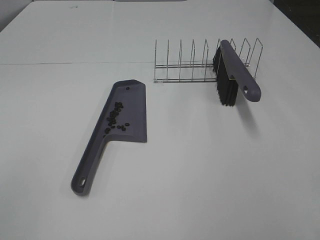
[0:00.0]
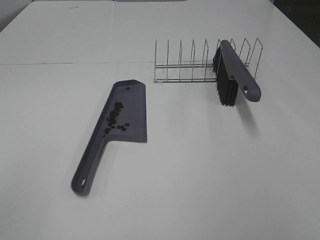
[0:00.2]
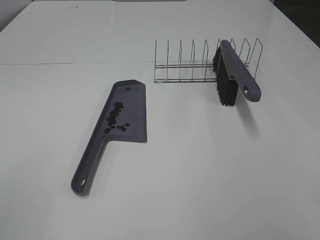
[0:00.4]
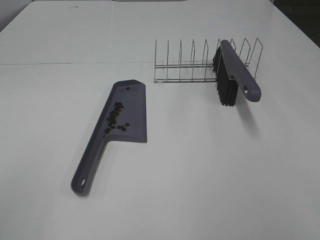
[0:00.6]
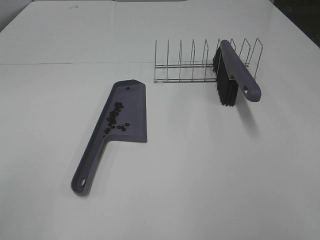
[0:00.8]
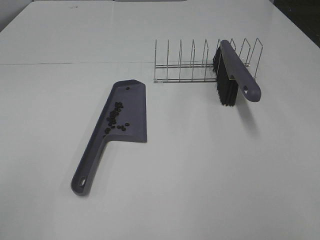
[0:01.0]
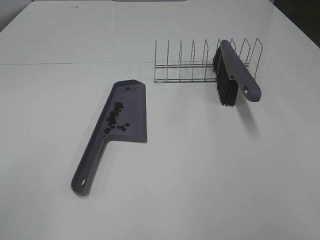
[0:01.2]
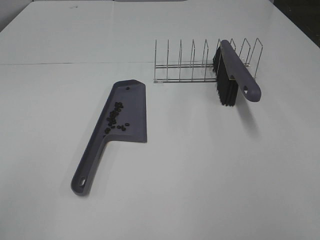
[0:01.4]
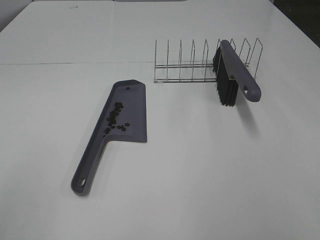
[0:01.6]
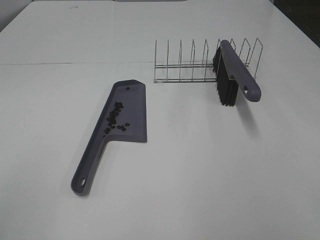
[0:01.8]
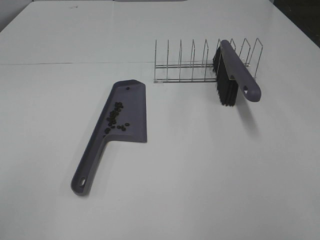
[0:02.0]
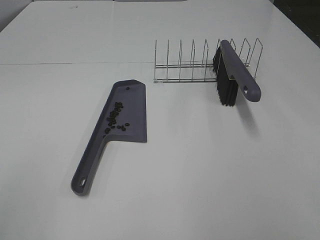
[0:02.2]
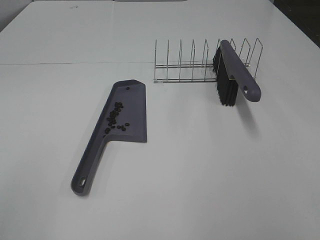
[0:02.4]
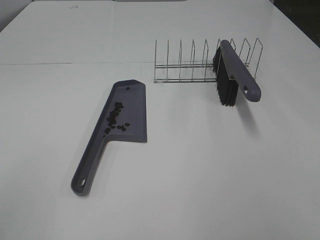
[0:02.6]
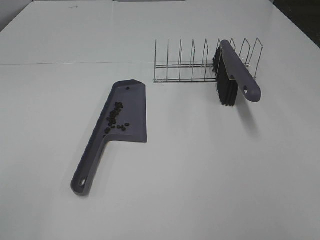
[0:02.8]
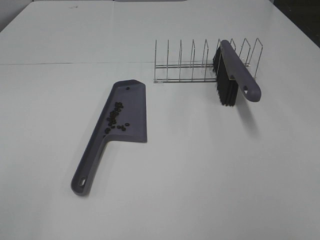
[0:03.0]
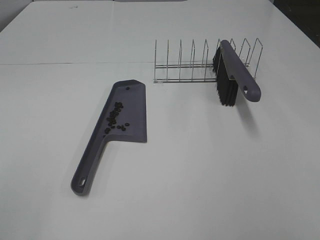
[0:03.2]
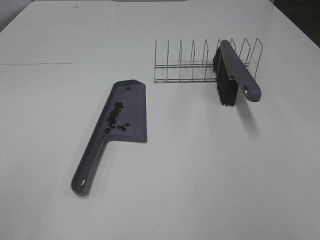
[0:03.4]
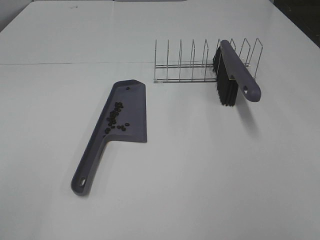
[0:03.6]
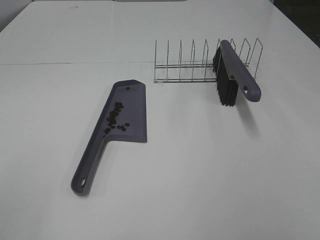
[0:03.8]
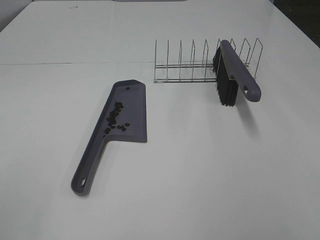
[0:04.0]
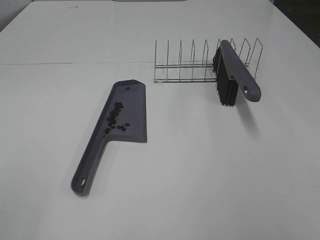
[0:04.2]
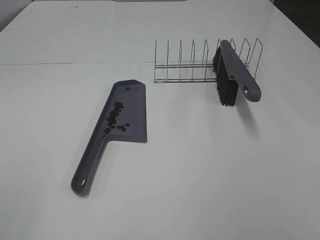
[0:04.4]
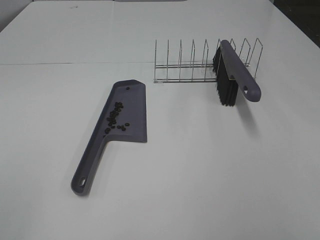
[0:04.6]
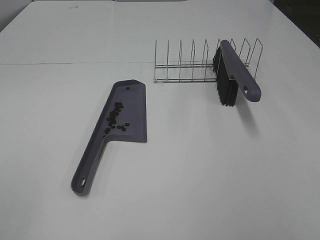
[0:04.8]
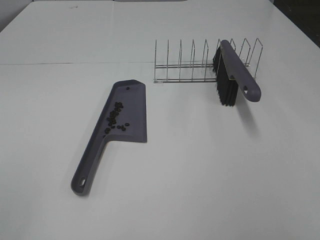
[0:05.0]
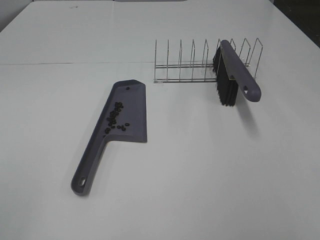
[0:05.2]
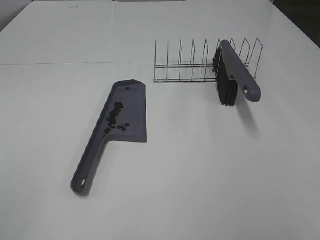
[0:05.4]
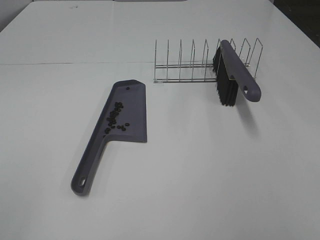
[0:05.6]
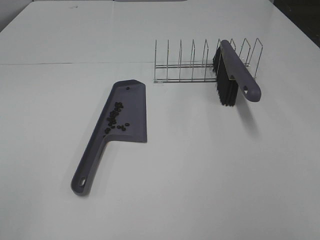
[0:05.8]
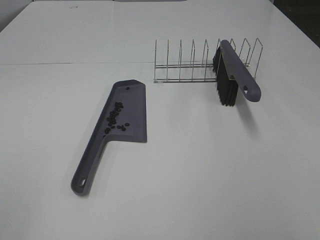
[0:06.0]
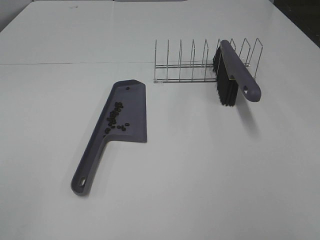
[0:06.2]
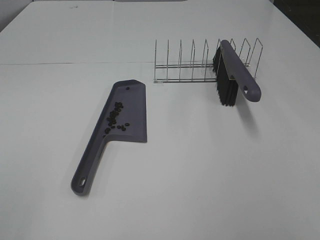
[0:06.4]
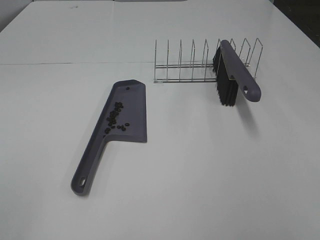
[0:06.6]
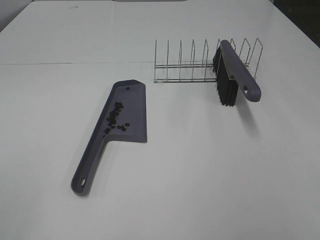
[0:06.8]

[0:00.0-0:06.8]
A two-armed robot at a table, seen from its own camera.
Task of the whole recording: Sweep Coffee Bean.
0:05.4 to 0:06.8: Both grippers stay put.

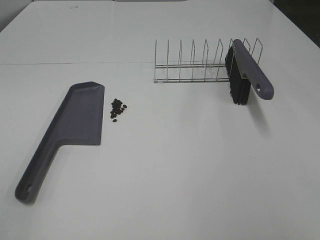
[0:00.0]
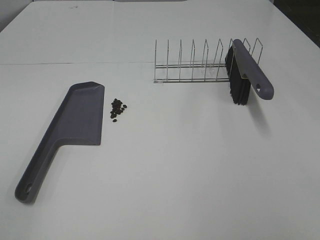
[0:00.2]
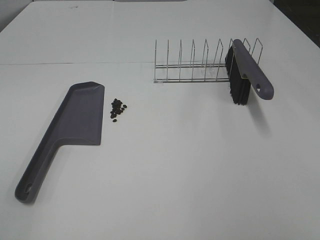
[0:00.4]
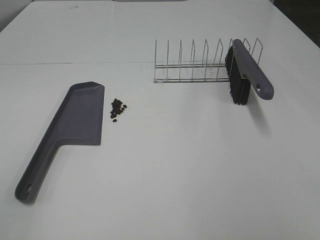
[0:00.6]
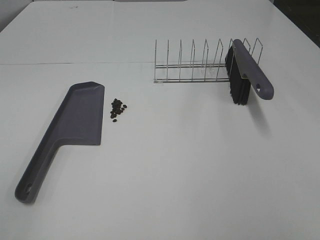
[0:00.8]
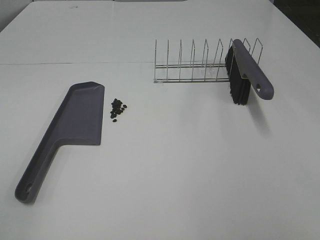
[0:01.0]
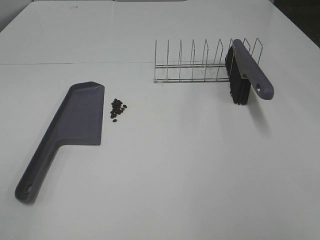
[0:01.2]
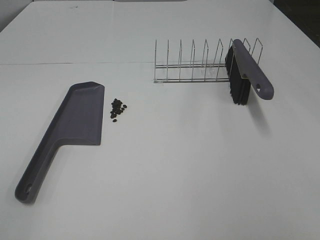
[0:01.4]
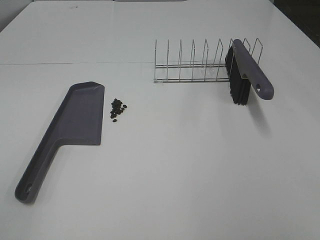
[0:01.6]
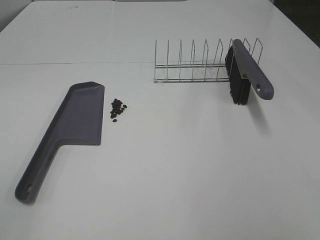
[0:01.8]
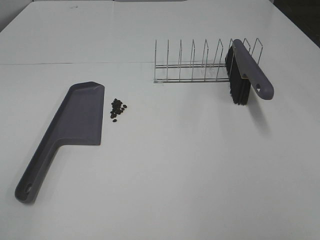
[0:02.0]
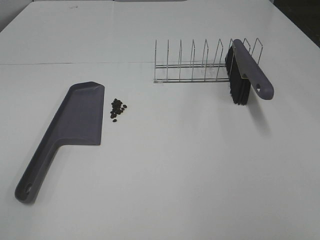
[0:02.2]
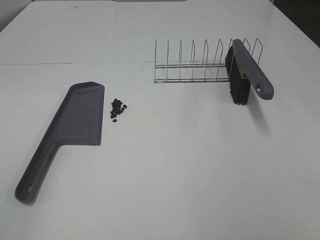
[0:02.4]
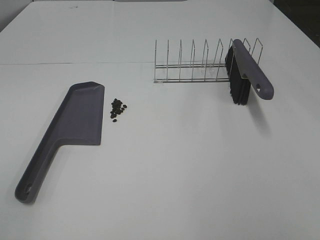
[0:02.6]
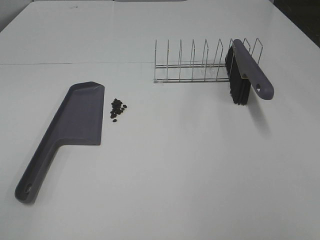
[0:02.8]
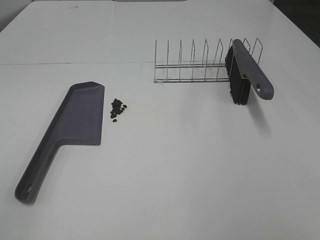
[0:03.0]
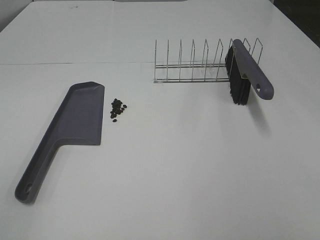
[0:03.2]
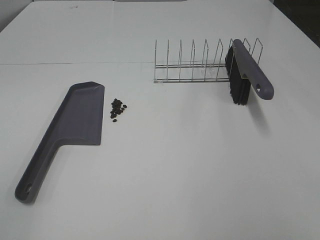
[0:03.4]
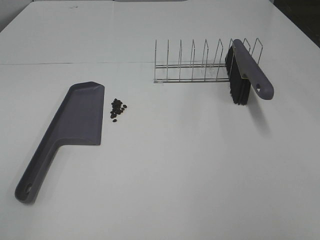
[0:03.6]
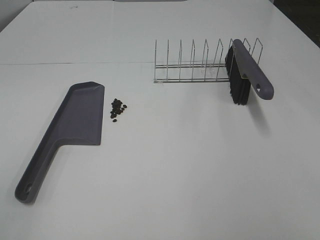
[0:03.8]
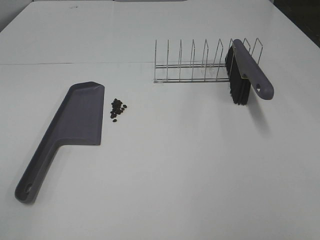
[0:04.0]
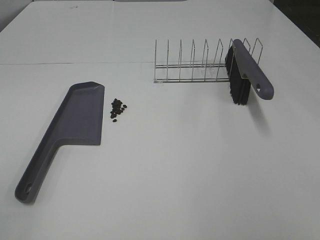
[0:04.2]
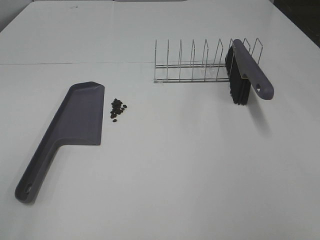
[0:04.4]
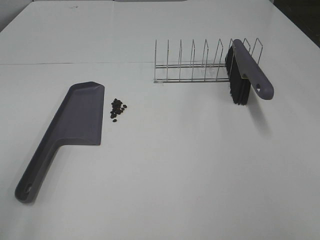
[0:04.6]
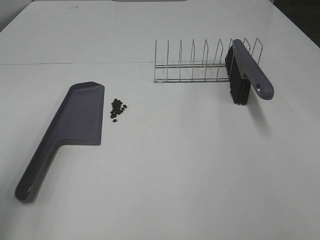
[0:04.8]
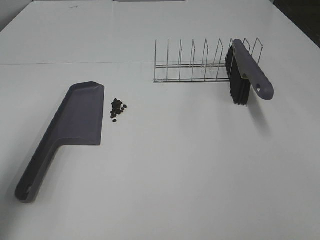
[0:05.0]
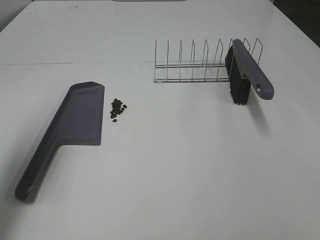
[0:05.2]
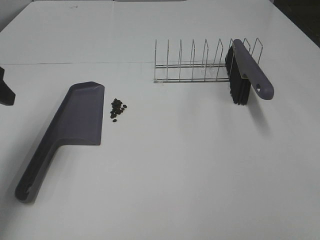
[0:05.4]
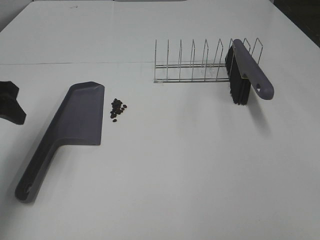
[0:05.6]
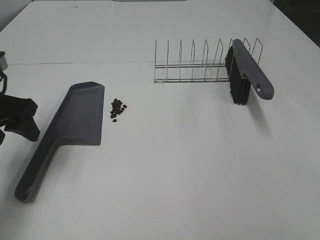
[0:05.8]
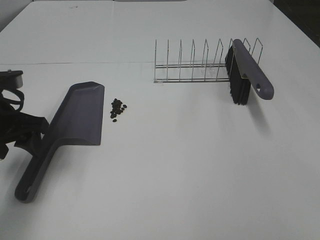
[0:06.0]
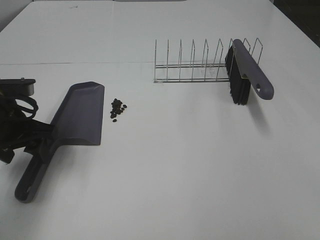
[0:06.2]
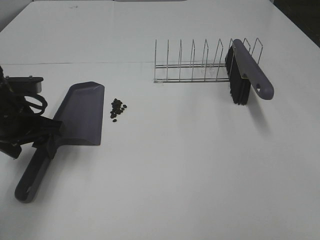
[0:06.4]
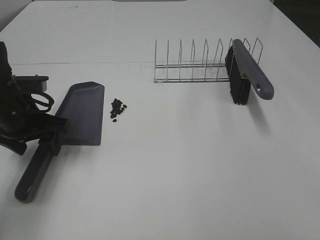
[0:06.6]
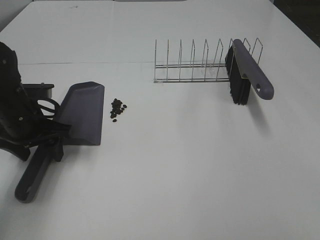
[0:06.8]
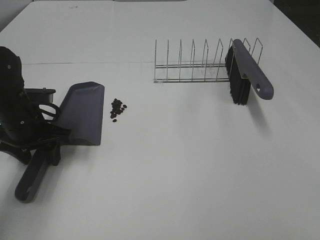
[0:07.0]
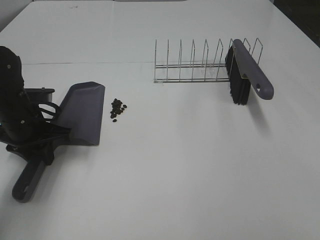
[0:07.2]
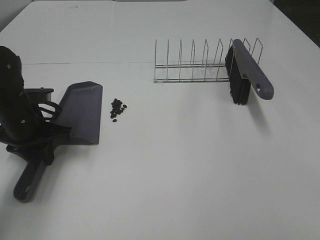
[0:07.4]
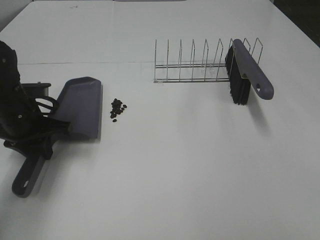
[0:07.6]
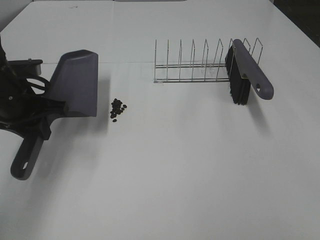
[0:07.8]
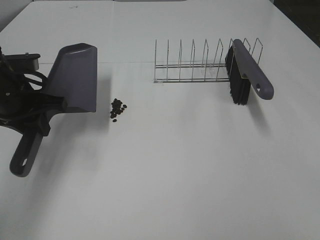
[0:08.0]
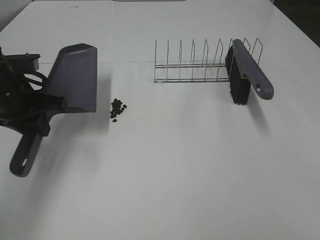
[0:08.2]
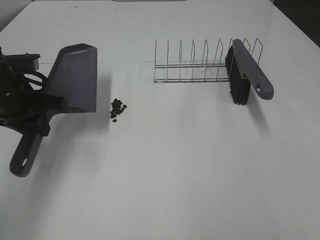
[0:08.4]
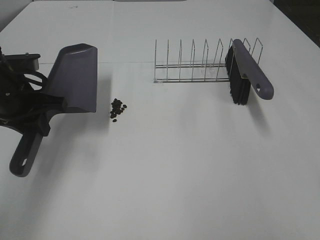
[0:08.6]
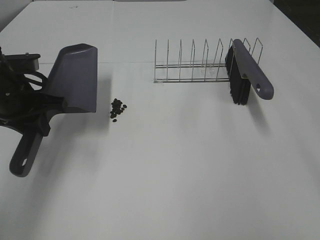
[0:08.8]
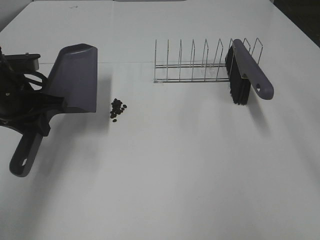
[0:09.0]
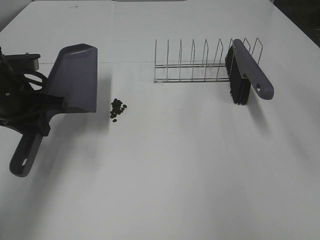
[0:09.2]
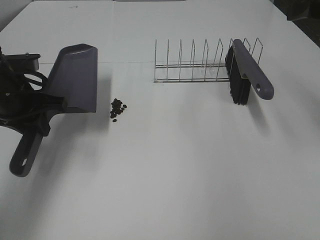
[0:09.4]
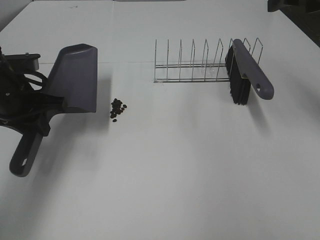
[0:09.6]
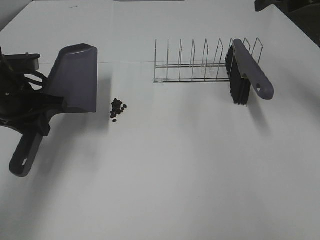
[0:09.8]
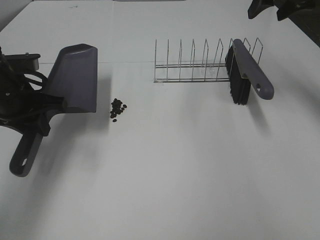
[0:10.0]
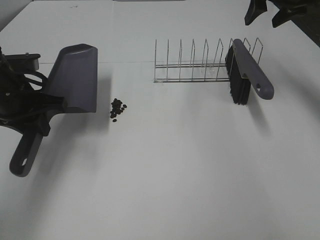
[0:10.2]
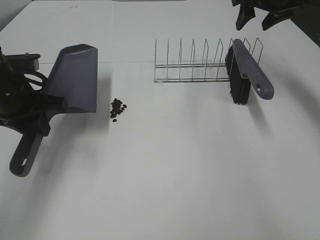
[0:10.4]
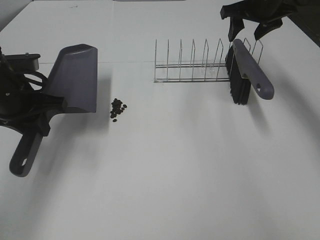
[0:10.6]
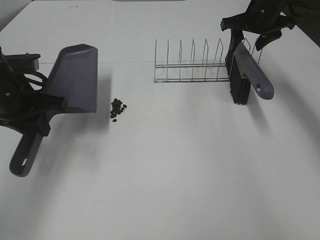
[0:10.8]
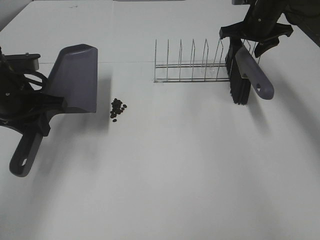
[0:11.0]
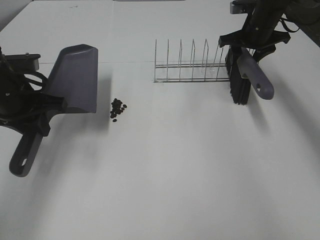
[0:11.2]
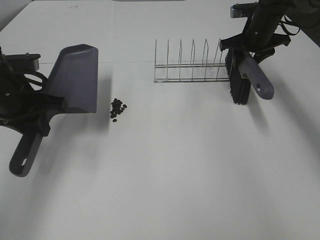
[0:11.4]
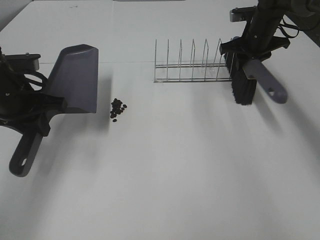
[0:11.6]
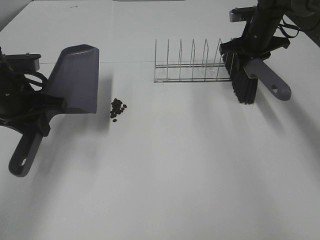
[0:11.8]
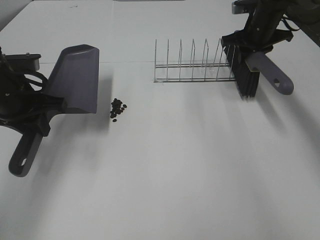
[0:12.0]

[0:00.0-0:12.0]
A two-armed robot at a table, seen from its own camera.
Task of the whole recording: Sweep Coffee Bean.
Step, 0:00.0 to 0:07.4: Left hand: grab the dustpan.
Step, 0:08.2 to 0:11.4: Right hand:grab the broom.
0:00.0 to 0:03.0: Both grippers stay about where they are.
0:04.4 to 0:06.0: The left gripper moves forward and downward, approximately 30 cm.
0:06.0 to 0:07.6: The left gripper ends up some 5 cm from where it was, and closes up.
0:09.0 to 0:10.4: The right gripper heads forward, covering about 35 cm.
0:10.4 to 0:12.0: The right gripper travels downward by roughly 10 cm, and closes its fingers.

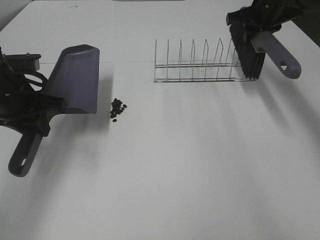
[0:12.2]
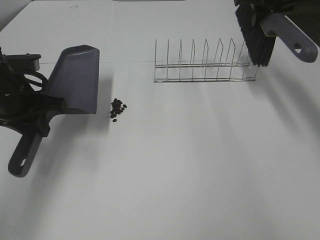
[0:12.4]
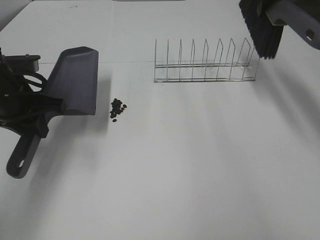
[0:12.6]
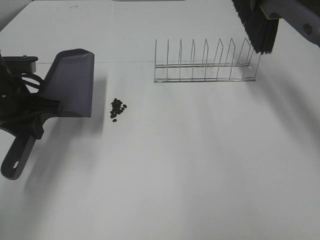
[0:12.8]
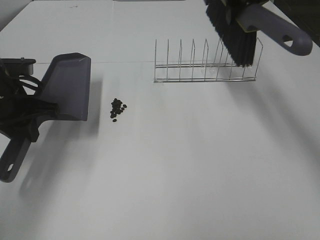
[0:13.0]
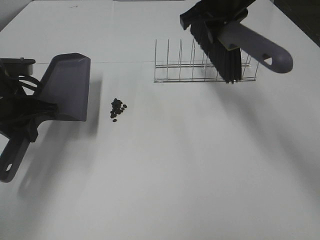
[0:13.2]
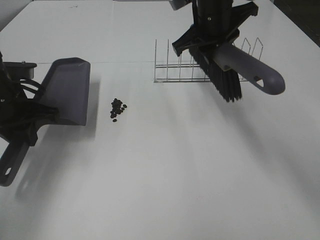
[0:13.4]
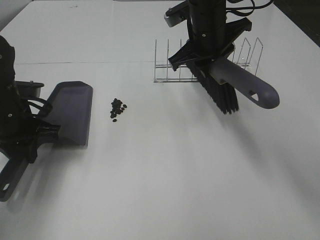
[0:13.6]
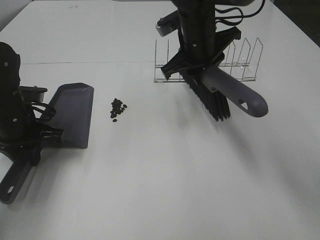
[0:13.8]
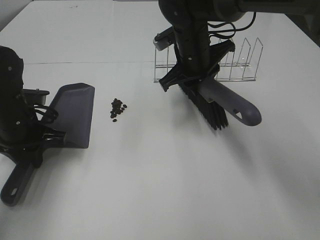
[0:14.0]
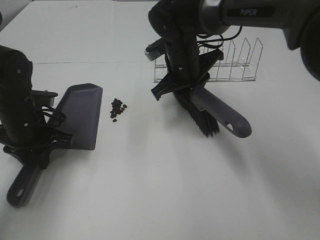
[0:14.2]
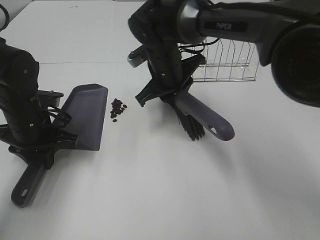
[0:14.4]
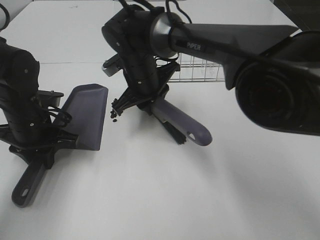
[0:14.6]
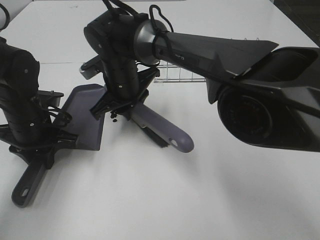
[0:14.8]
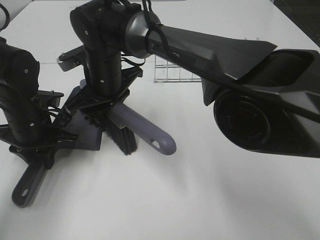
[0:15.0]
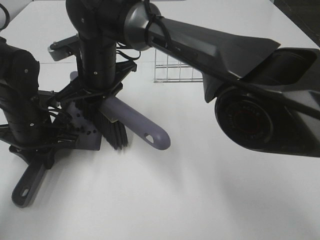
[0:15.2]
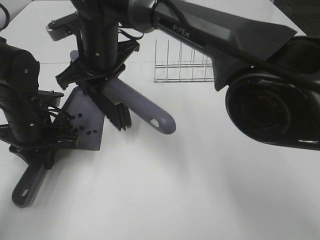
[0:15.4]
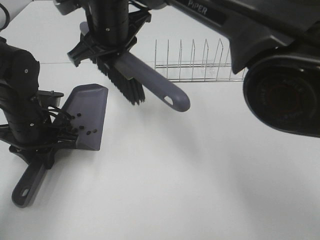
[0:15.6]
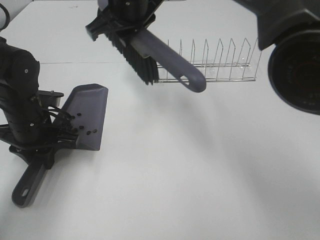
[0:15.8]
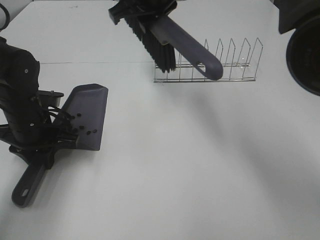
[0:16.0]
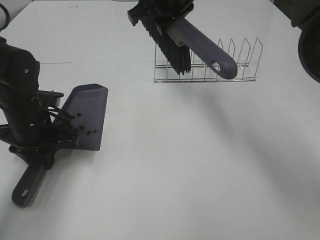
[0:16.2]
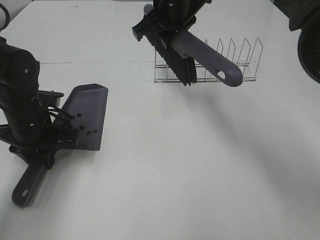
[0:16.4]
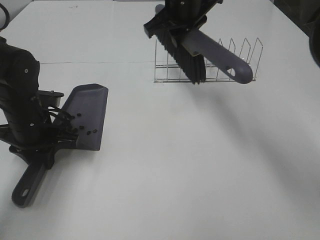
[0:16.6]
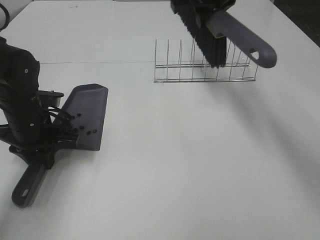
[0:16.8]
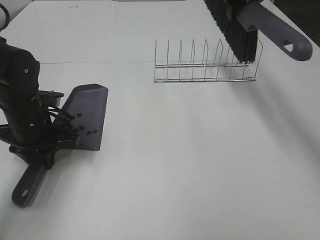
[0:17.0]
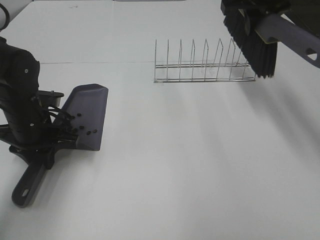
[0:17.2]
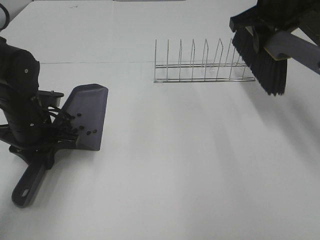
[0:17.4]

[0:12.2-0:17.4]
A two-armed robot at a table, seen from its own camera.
Task of the whole recording: Sweep Coffee Bean.
Step, 0:12.2 to 0:14.4: Left hand: move the dustpan to the left side of the coffee beans.
Step, 0:12.2 to 0:15.4: Right hand:sweep the coffee beans into the dustpan.
0:12.2 to 0:14.0: The left gripper shifts about 5 cm downward, while the right gripper goes approximately 20 cm to the left and backward.
0:14.0 to 0:15.6: The right gripper heads to the left and upward, covering some 15 cm.
0:15.6 to 0:17.4: The right gripper moves to the right, roughly 30 cm.
